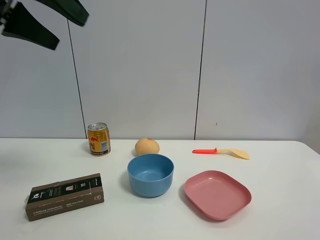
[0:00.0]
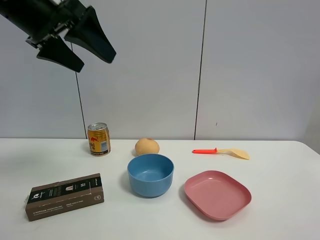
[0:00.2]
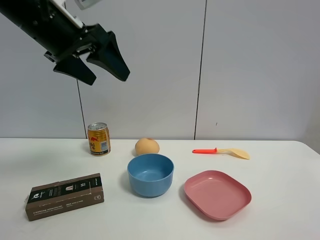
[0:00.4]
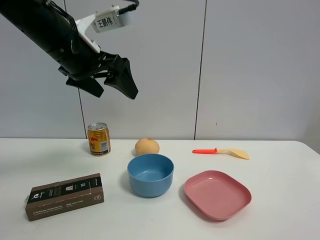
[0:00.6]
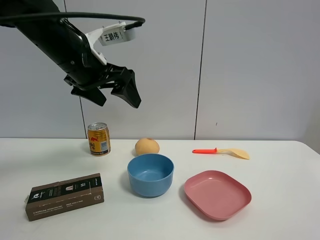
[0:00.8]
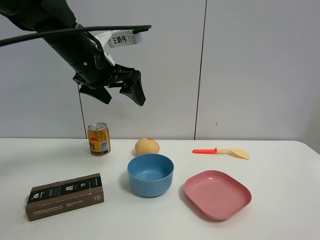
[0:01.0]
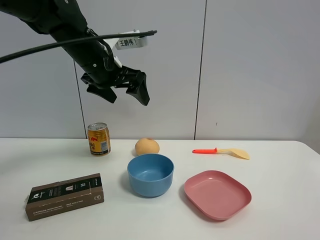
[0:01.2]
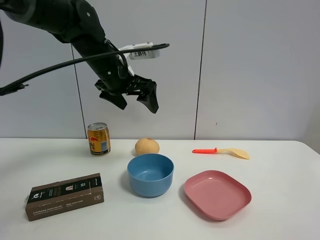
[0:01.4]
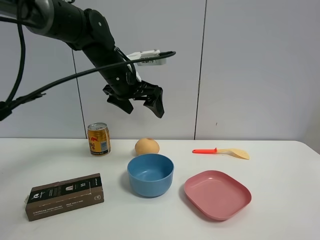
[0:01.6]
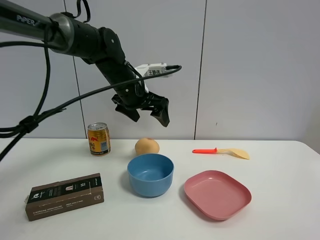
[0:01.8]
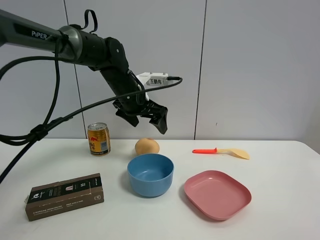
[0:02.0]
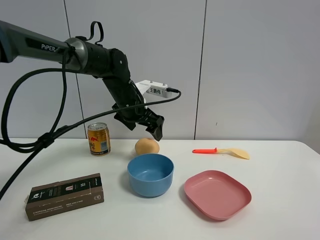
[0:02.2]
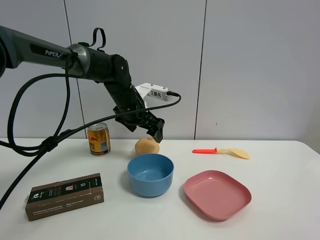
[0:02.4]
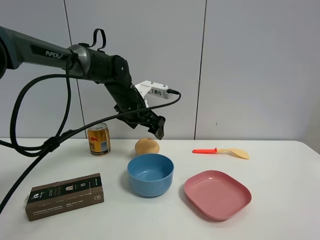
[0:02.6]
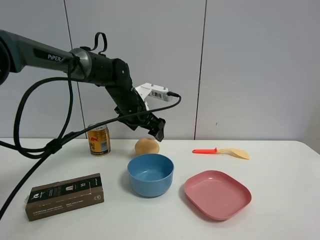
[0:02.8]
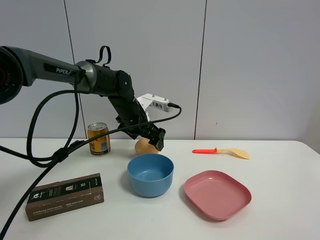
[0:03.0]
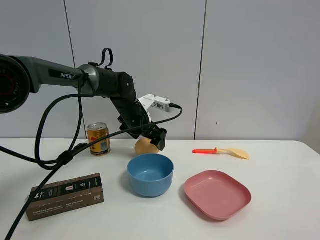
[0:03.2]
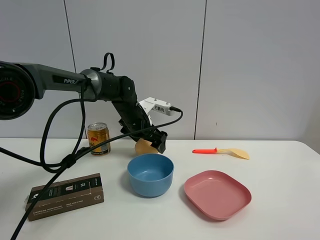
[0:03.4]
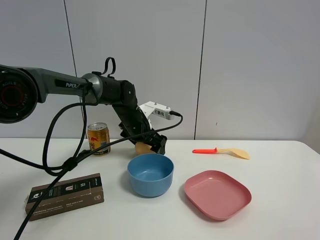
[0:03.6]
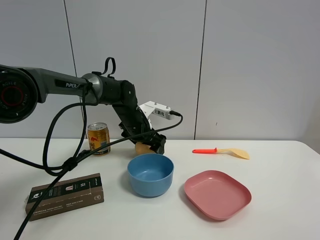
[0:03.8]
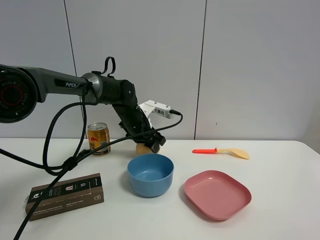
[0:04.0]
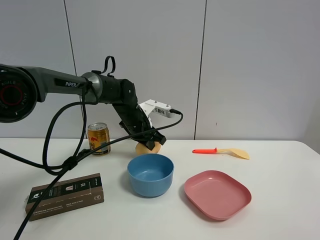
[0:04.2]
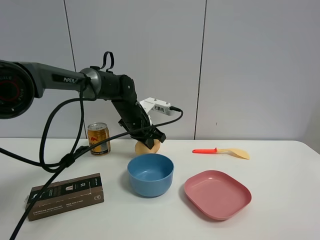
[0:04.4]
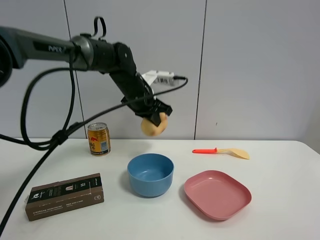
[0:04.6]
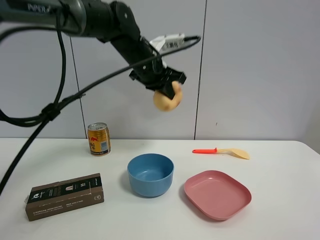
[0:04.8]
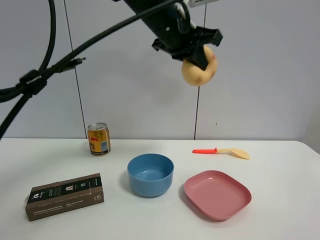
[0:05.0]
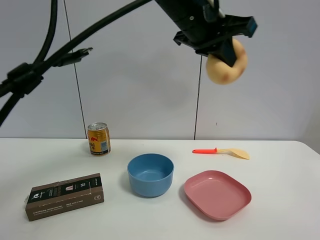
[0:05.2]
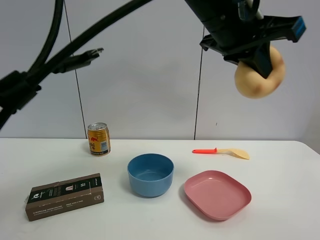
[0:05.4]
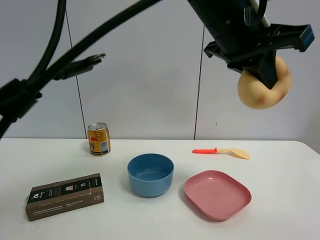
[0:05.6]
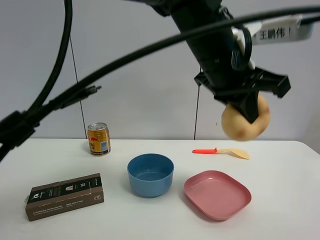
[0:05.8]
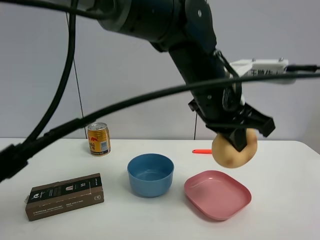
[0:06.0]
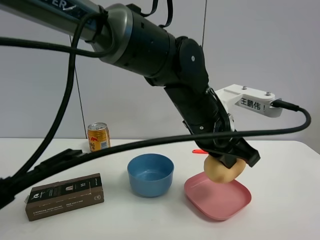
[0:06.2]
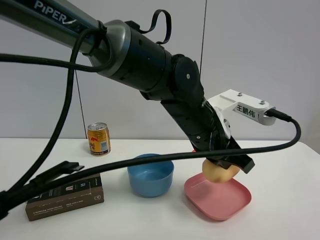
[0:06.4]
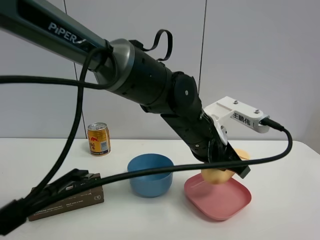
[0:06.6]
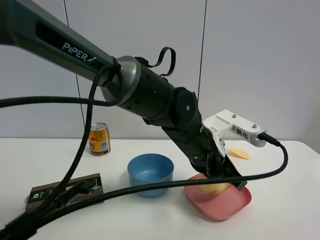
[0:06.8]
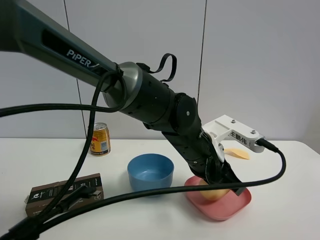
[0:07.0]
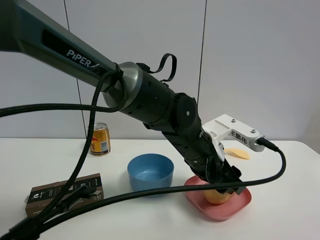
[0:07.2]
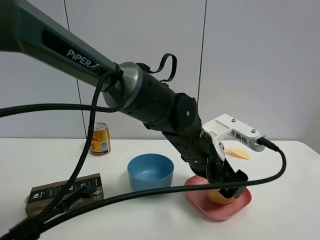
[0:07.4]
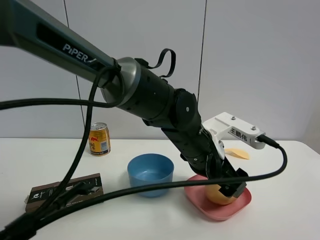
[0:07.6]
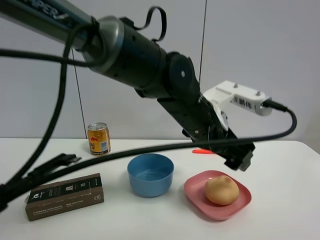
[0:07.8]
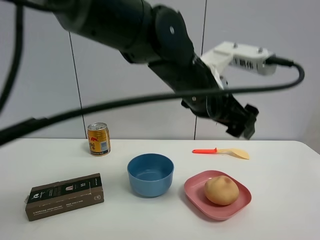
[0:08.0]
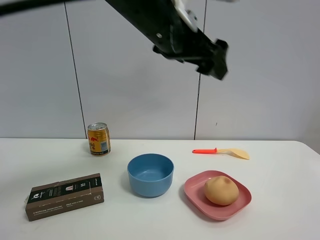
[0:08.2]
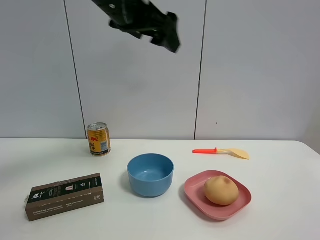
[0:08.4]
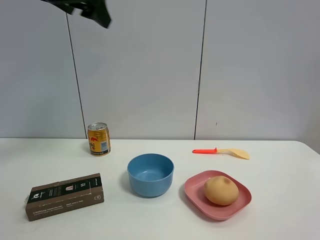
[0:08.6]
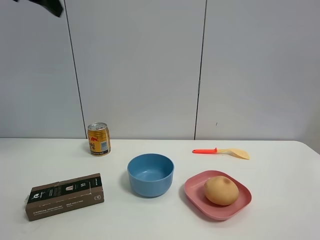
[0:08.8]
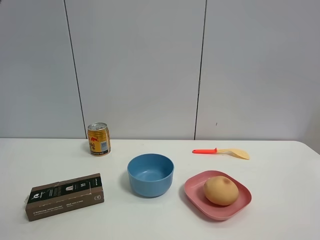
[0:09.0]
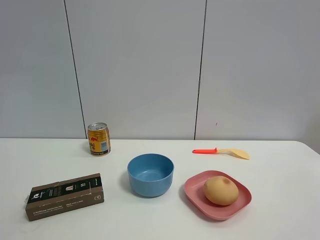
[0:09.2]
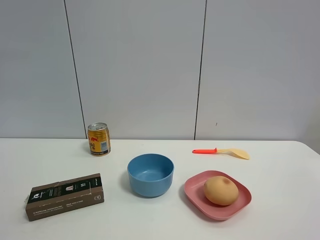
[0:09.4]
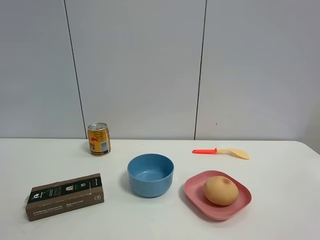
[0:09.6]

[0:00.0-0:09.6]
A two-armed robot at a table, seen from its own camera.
Task of the whole recording: the gripper move the object.
Step, 0.0 to 4.0 s: Grasp the egg yolk pastry with the left gripper.
Step, 4.2 to 7.2 s: Place the egg yolk pastry into the pink plate with the left gripper.
0.0 to 1.6 s: The left gripper shifts approximately 25 cm forward, downward and to the right.
1.6 to 3.2 s: The left gripper travels downward and forward by some 10 cm.
3.2 to 4.8 s: The left gripper shifts about 15 cm upward, and closes up.
4.8 to 6.4 s: The left gripper travels backward, to the right and downward by some 20 cm.
6.4 to 8.0 s: The left gripper is displaced upward by about 5 cm, and opens up.
8.0 to 9.6 s: The left gripper is displaced to the left, backward and upward by approximately 50 cm.

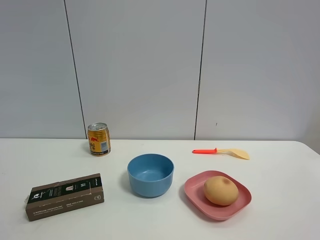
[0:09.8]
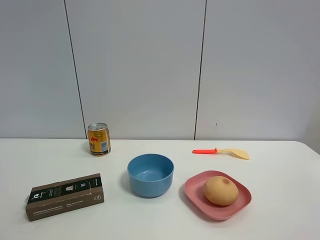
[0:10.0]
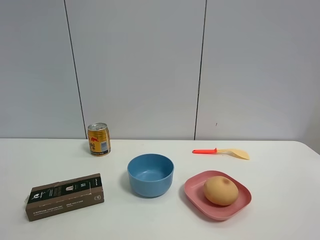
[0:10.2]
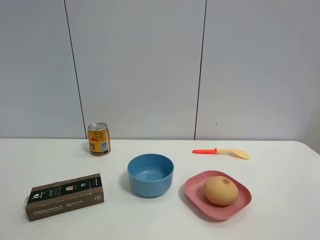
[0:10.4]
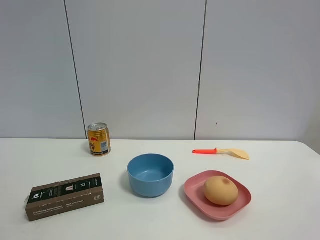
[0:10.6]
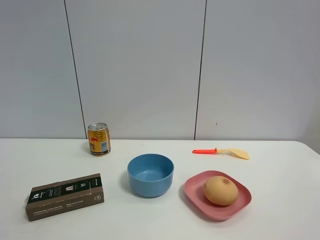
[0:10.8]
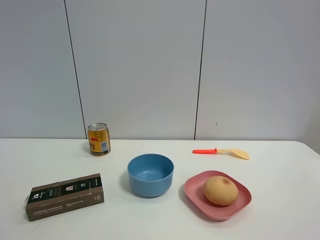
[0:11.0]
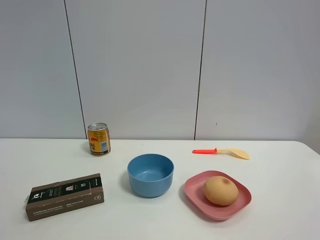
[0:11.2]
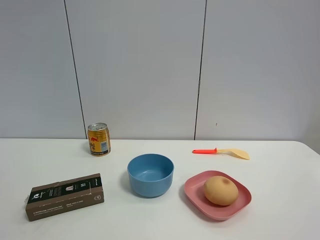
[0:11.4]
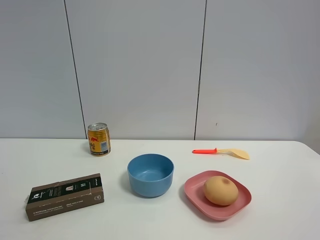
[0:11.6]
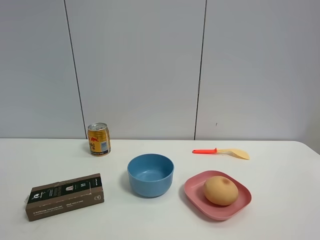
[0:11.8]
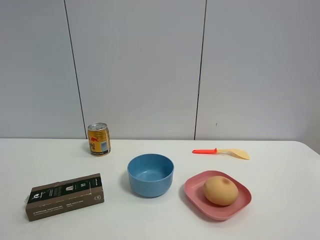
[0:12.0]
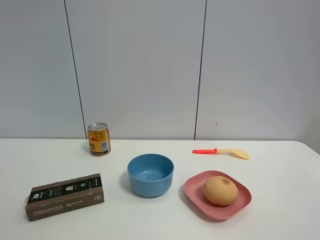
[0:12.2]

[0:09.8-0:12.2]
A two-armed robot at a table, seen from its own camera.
Task of the whole recording: the gripper move the object.
11.0 to 12.2 s: The two grippers keep their place.

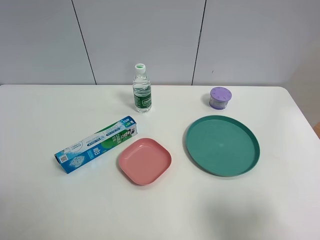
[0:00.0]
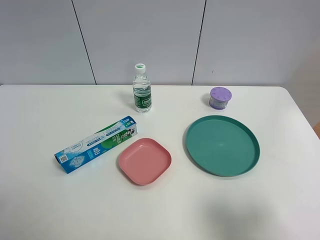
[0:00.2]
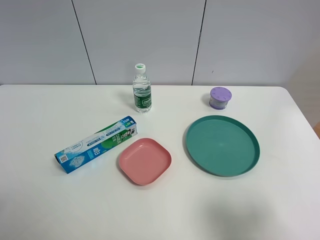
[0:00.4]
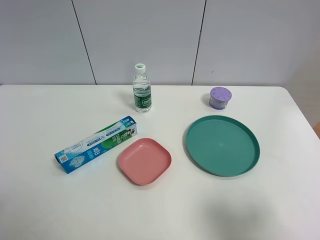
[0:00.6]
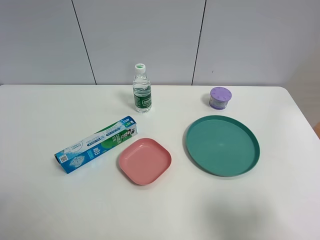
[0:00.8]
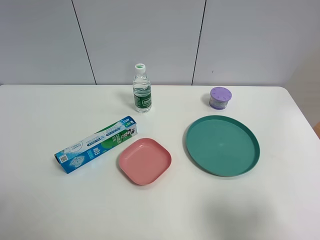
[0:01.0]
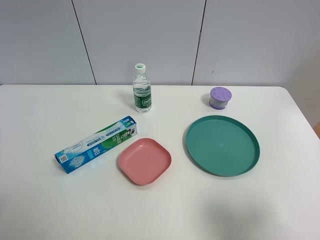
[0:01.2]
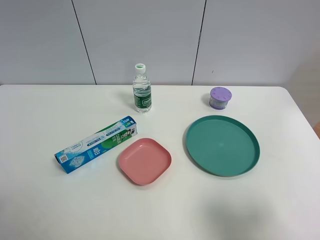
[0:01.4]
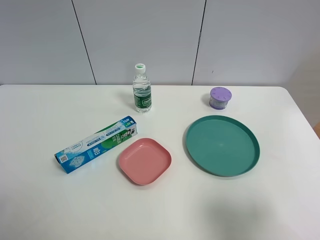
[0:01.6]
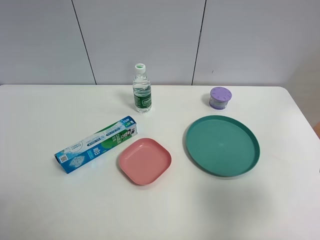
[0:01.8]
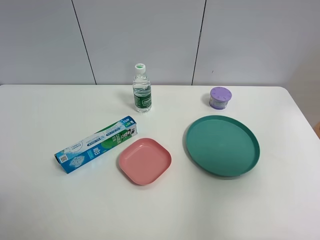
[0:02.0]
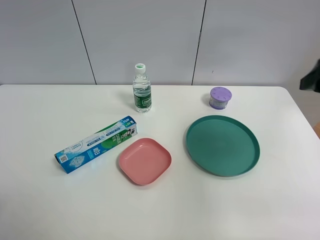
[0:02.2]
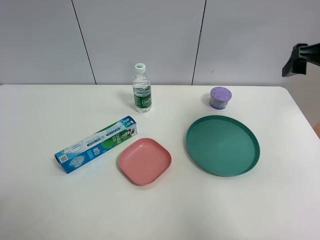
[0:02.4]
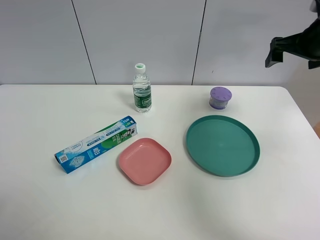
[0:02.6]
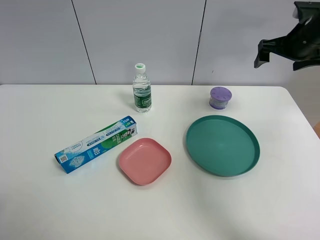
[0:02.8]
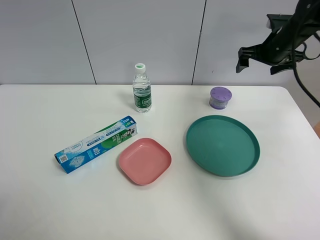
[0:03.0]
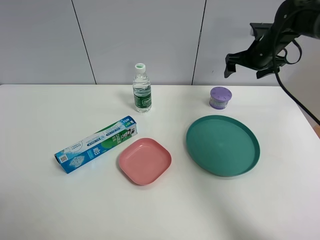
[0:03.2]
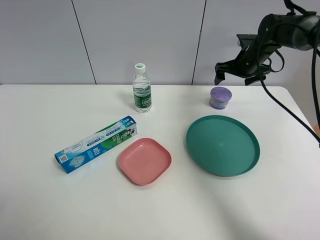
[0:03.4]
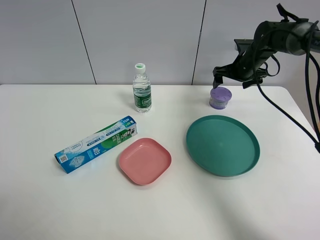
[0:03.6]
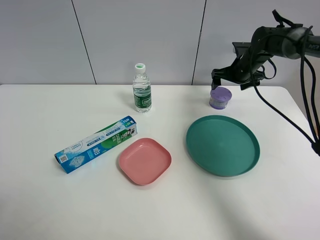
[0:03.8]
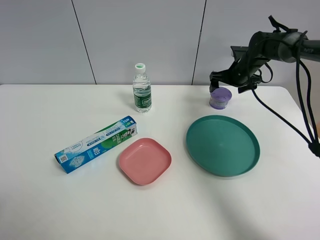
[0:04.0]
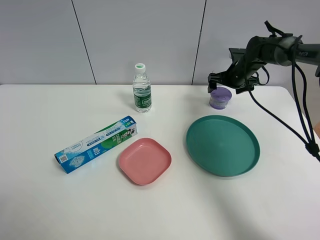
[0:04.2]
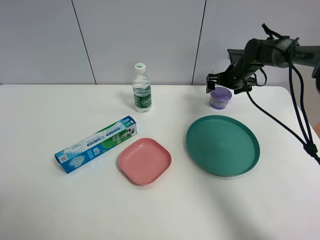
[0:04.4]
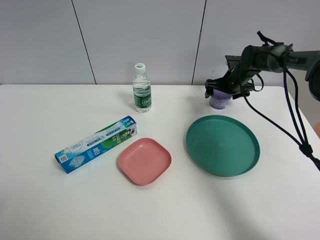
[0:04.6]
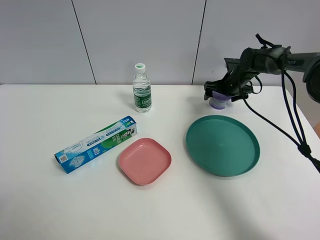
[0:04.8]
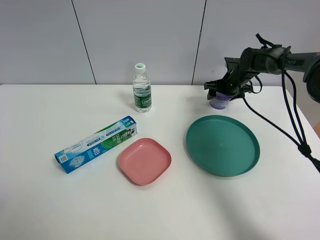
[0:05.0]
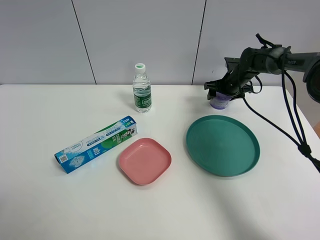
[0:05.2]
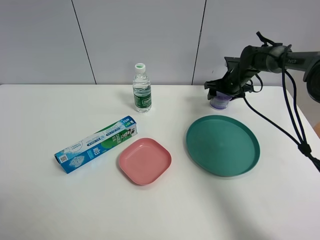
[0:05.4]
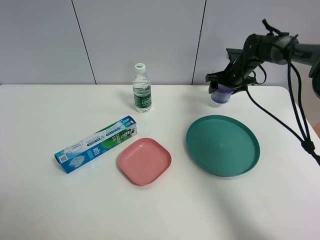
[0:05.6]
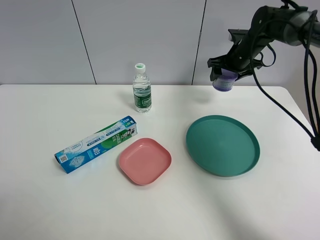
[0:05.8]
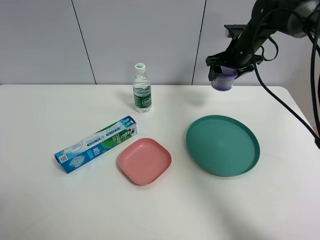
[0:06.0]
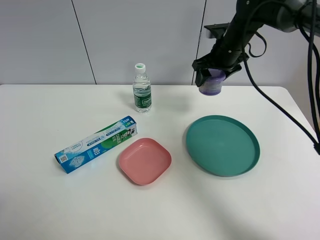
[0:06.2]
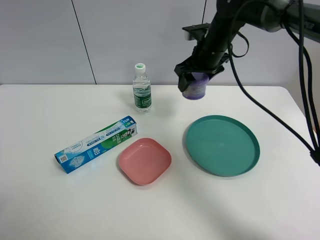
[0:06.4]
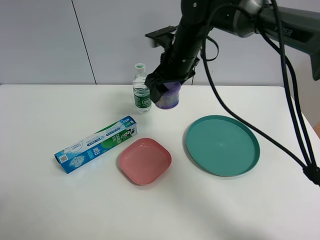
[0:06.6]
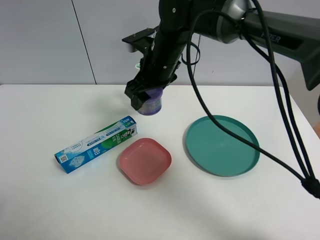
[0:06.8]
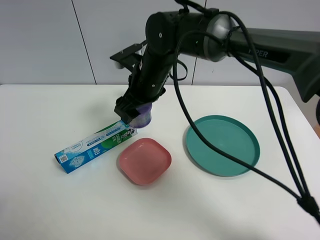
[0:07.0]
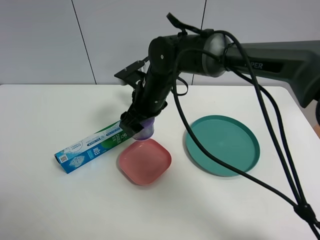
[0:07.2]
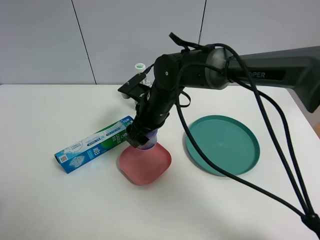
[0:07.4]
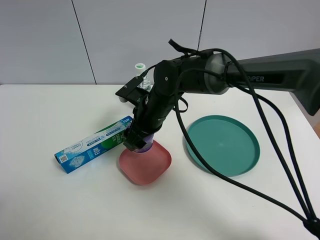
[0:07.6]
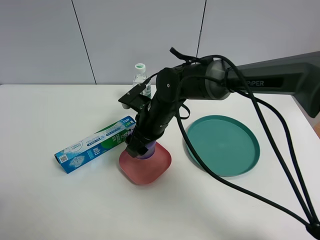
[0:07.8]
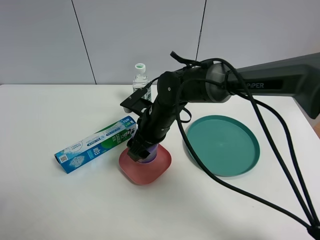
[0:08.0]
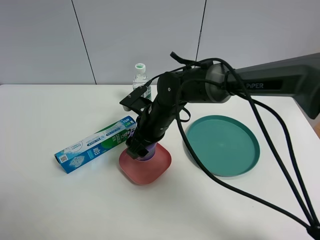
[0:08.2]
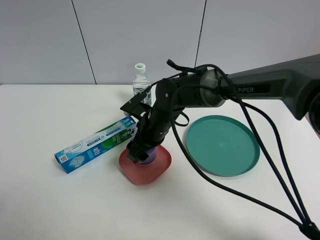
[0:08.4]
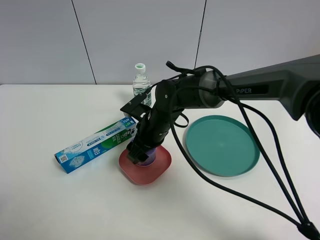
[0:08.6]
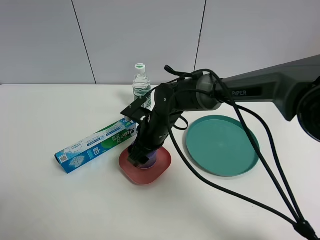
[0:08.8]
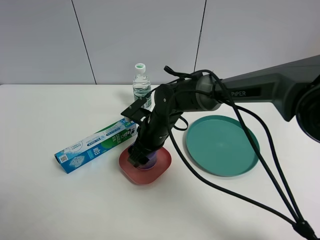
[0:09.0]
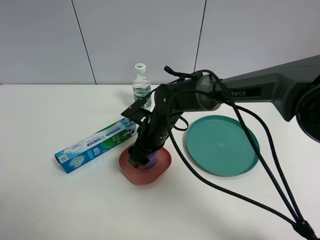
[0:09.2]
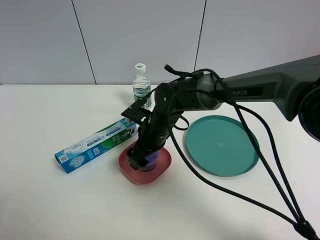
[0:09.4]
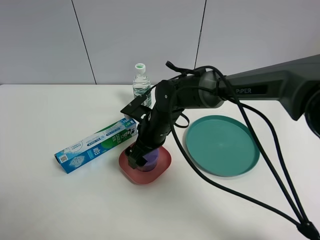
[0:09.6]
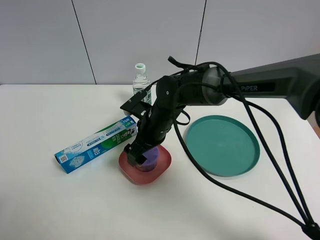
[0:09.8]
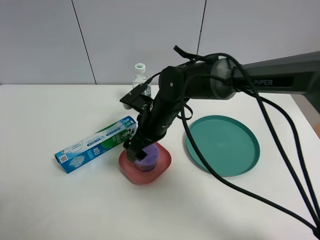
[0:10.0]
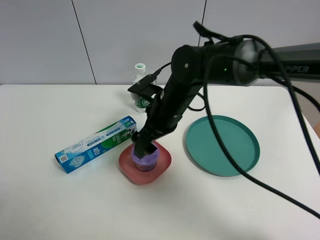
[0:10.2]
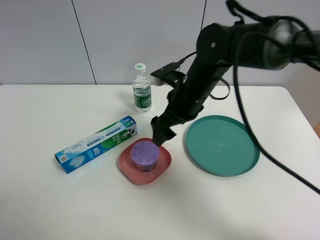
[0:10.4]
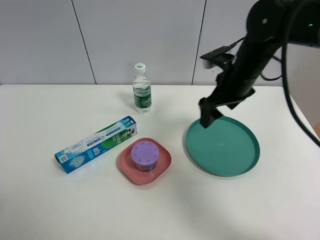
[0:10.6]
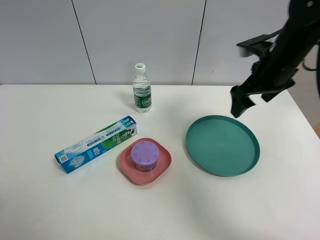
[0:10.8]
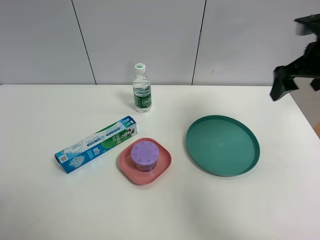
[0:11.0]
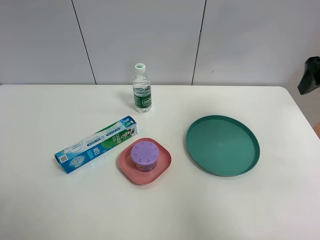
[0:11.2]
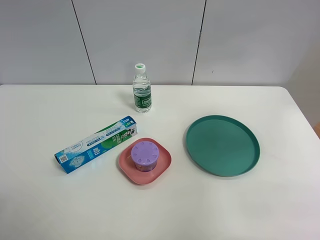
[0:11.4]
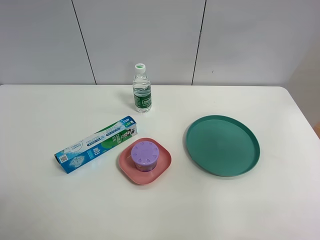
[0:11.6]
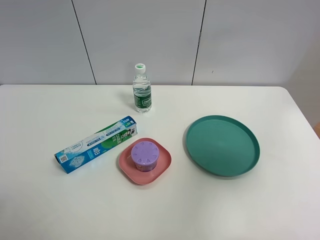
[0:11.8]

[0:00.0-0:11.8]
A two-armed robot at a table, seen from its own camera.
Task of the whole recording: the gripper move the object.
Step, 0.0 to 5.0 s: Grasp the Incense box with the right gripper.
Step, 5.2 to 10.0 s: Place the Incense box into the pink plate with the right gripper.
0.0 to 1.4 s: Both grippers stay put.
1.4 to 3.0 s: The right gripper heads forward, covering roughly 40 cm.
3.0 to 4.4 s: The right gripper goes roughly 15 cm downward and forward.
4.4 to 6.0 s: The right gripper goes approximately 10 cm upward, and closes up.
6.0 to 7.4 s: The right gripper is displaced to the left and backward by about 25 cm.
7.4 to 8.8 s: The right gripper shifts approximately 5 cm downward.
8.8 to 10.4 s: The right gripper shifts about 15 cm upward and to the right, and opens up.
10.4 to 11.8 s: The right gripper moves to the right, backward and upward, roughly 35 cm.
